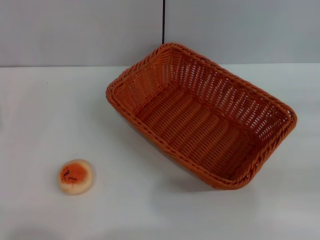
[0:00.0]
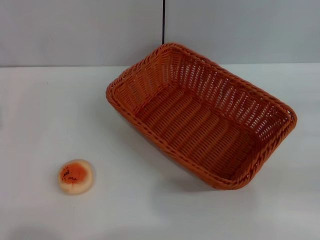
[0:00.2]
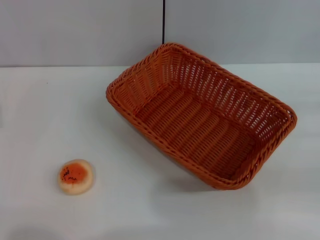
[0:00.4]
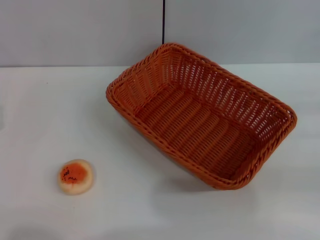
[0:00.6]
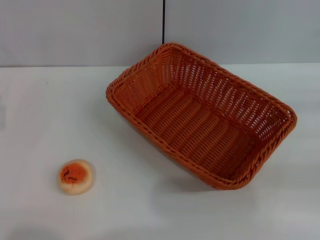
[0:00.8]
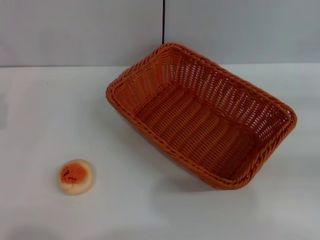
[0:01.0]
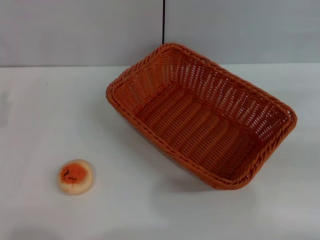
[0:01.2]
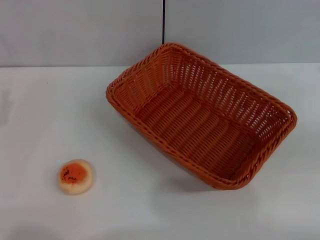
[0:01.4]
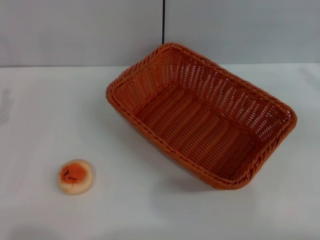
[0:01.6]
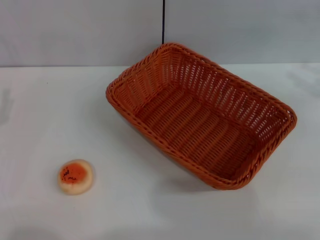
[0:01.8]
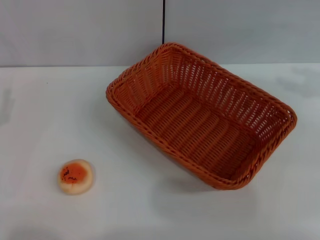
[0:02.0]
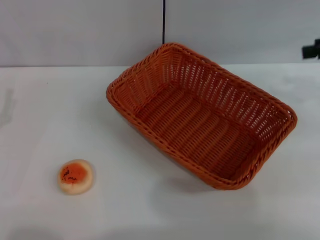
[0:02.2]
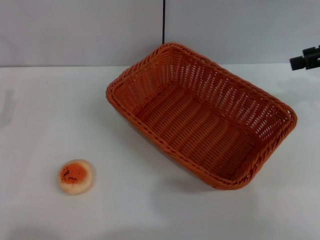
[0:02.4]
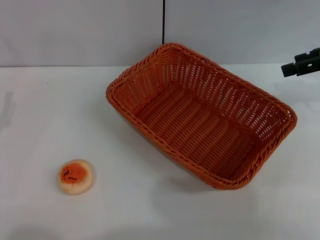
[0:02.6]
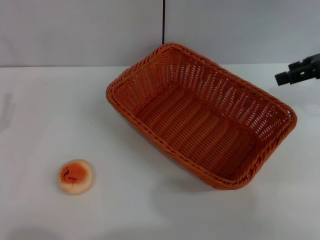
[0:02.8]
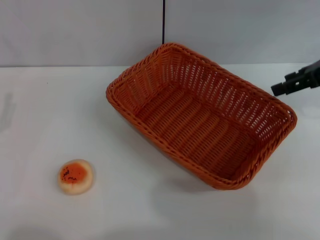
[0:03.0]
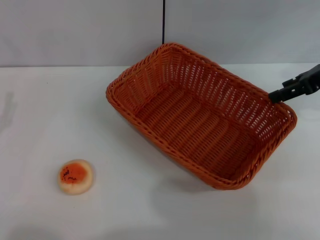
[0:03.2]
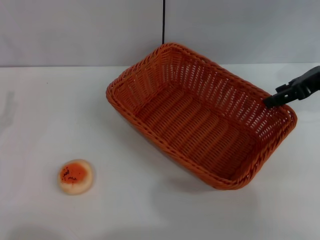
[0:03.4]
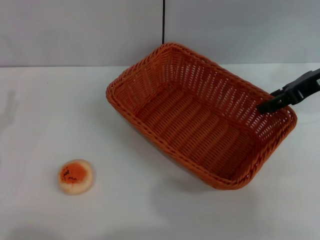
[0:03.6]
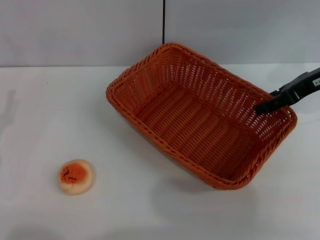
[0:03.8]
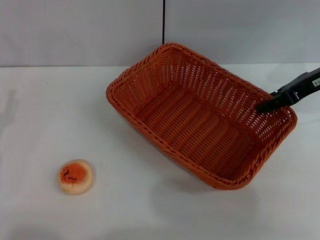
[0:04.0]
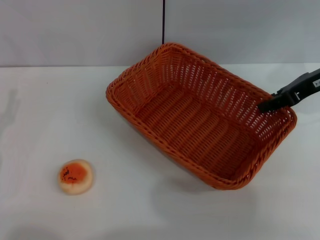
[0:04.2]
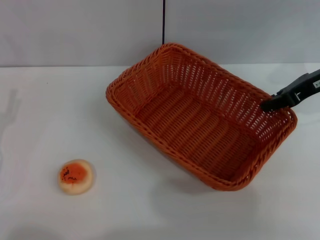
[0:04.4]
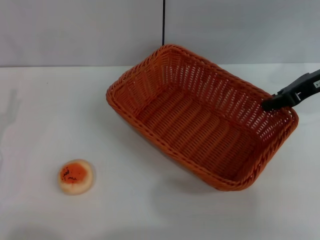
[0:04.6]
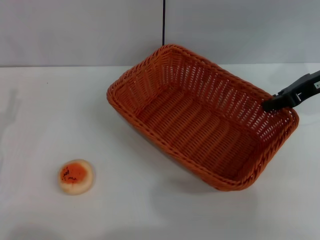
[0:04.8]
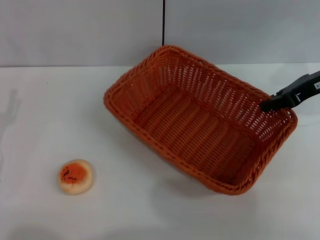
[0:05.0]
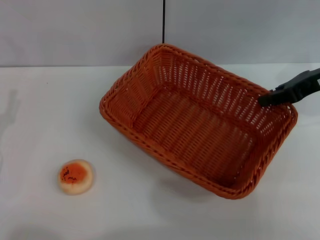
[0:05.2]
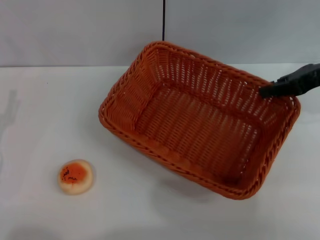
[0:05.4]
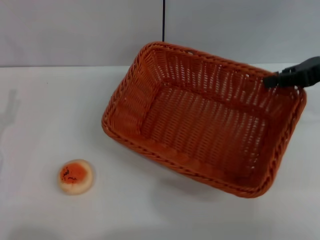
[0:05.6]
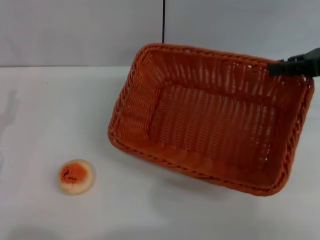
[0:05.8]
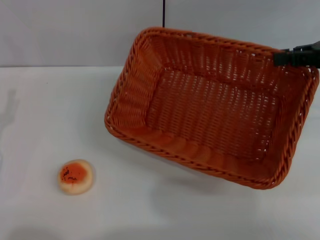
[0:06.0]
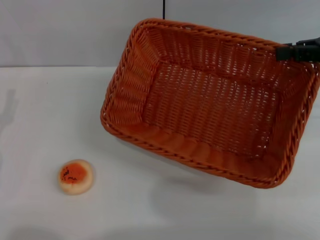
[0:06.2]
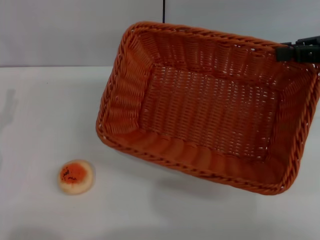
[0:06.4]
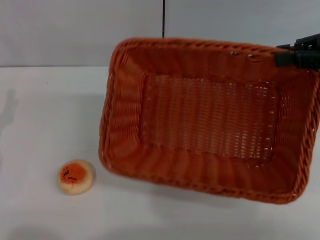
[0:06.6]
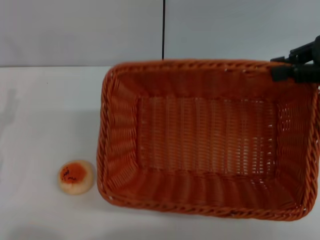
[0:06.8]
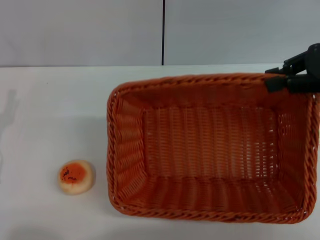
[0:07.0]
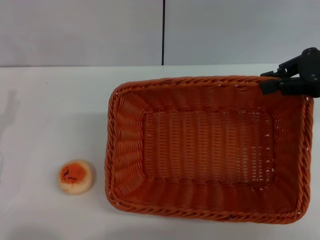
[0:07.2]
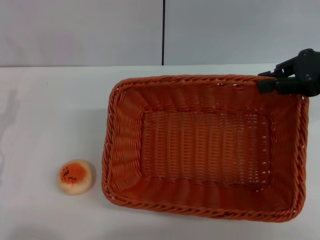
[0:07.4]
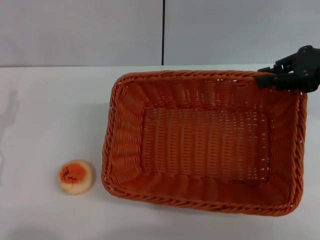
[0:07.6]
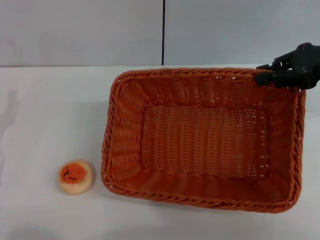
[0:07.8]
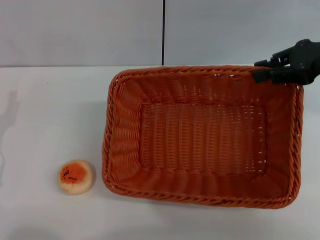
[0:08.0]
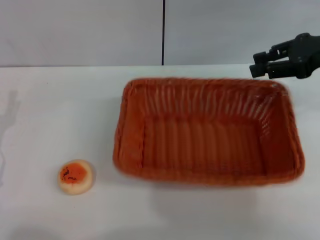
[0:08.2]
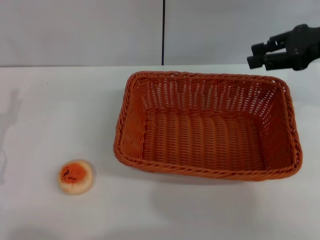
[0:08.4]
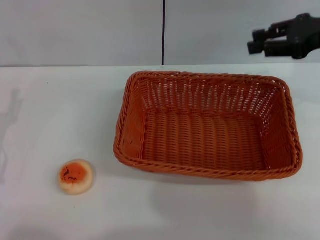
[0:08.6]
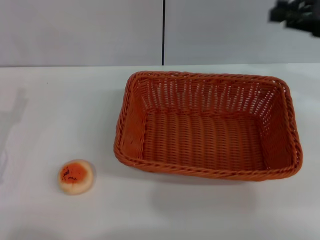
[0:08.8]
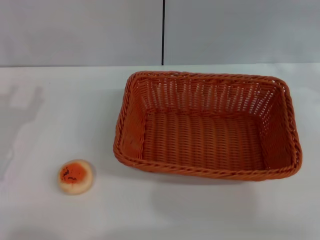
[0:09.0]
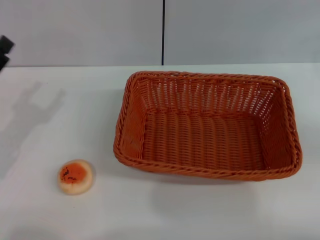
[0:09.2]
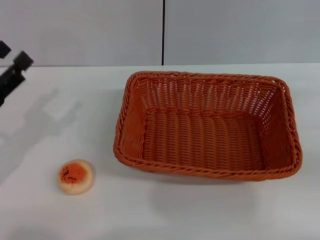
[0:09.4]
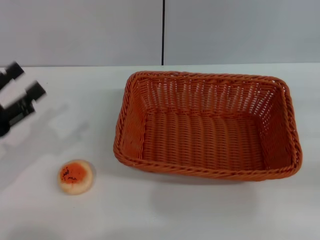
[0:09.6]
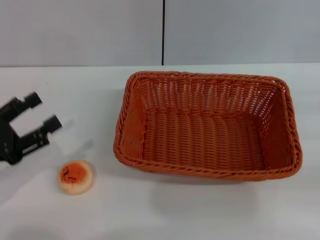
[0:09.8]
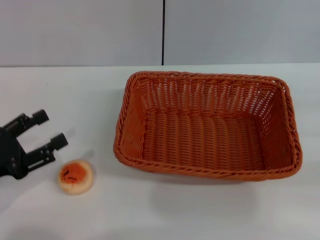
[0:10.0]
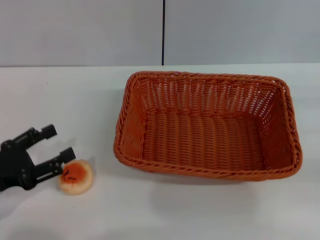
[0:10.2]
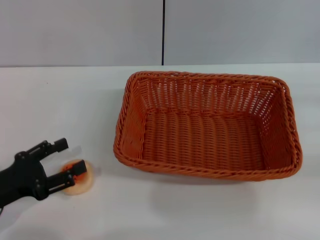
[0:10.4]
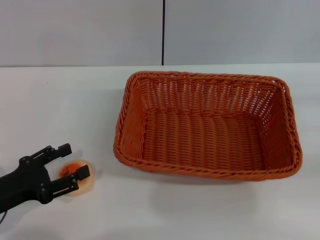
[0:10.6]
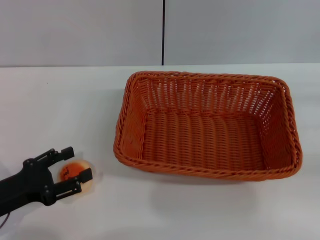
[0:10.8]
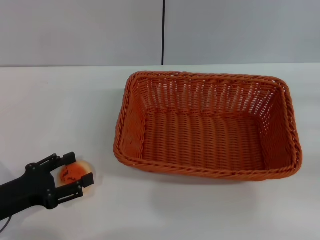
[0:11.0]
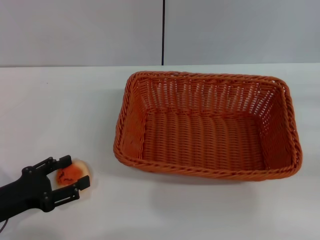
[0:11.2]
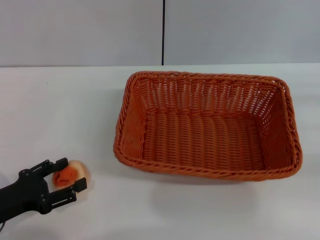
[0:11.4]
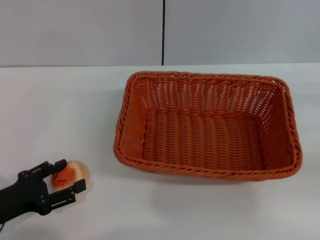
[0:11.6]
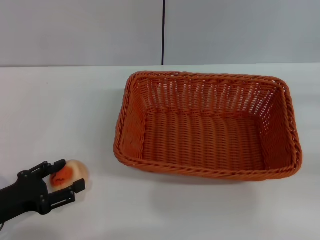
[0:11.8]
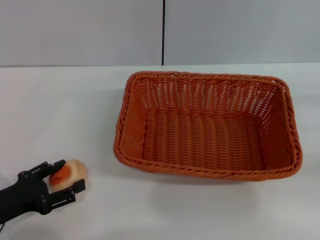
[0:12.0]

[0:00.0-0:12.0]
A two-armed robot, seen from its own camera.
Step, 0.0 to 8.4 s: Move the basket to the center of view with the right gripper.
1.6 to 3.0 s: The right gripper travels to the left and forward by approximately 15 cm.
3.0 to 4.4 s: The right gripper closes up.
4.4 to 6.0 s: The right gripper shifts approximately 5 cm to the right, and closes.
7.6 to 9.0 s: The right gripper moves to the right, approximately 5 cm, and opens up.
10.4 to 12.0 s: The grippers make only small movements.

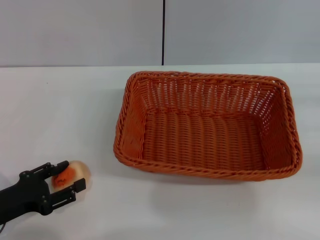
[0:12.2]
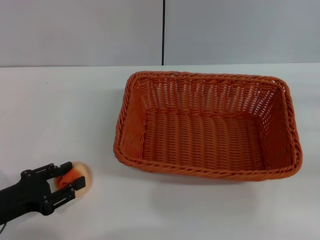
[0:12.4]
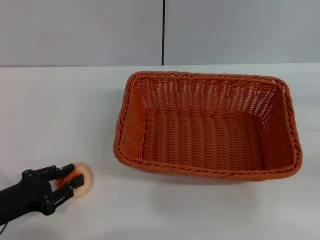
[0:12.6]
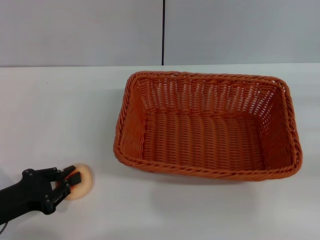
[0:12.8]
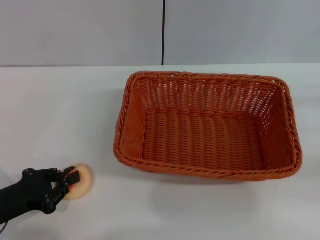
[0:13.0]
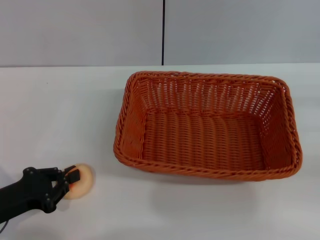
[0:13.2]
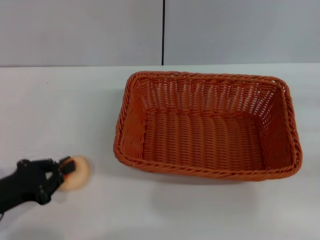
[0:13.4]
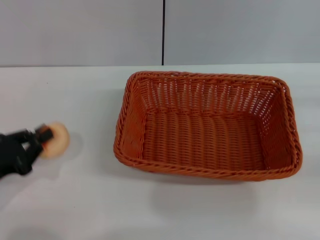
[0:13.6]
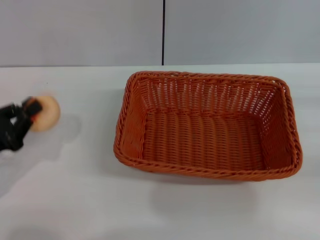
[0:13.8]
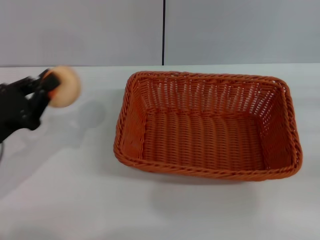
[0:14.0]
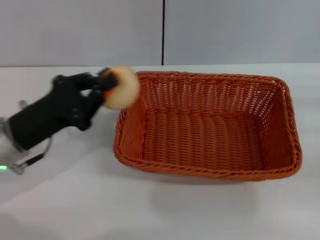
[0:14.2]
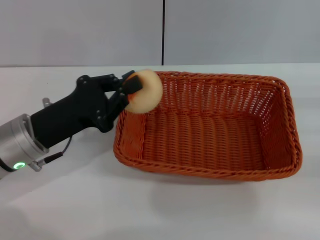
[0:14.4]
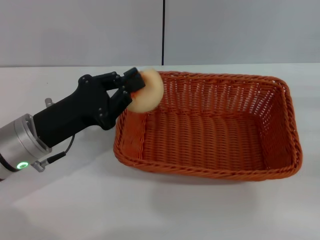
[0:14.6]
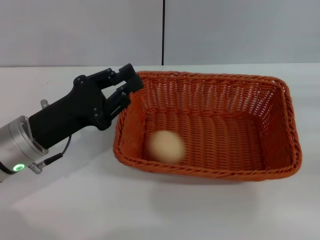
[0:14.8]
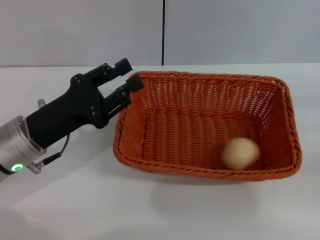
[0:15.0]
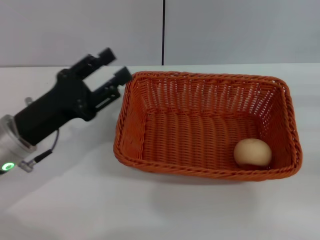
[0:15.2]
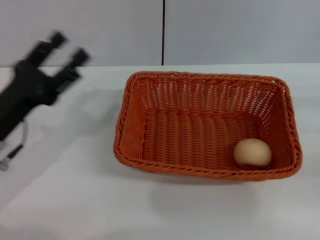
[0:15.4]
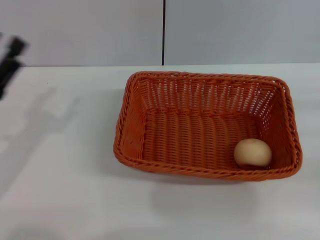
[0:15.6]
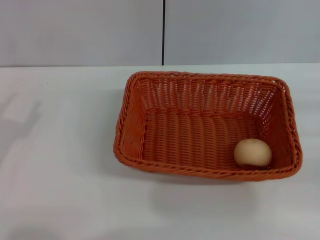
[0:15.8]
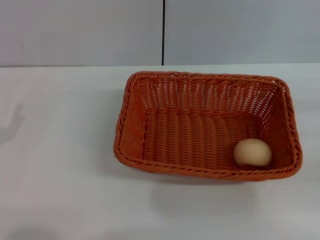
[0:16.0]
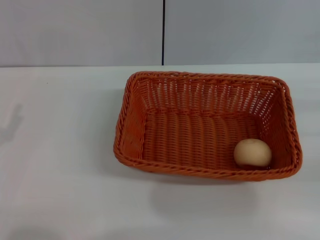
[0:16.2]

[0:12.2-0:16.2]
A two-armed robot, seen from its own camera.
Step, 14.0 to 14.8 s: Place the egg yolk pastry into the basket with the left gripper.
12.2 to 13.6 s: The left gripper closes its fingers.
13.6 to 14.8 s: The left gripper is displaced to the right and forward by roughly 10 cm.
14.8 to 16.2 s: The left gripper goes approximately 15 cm to the left and backward, and opens.

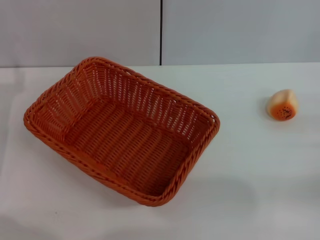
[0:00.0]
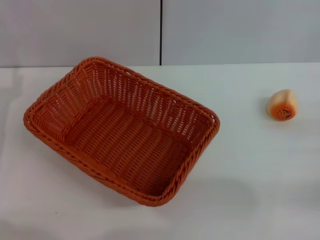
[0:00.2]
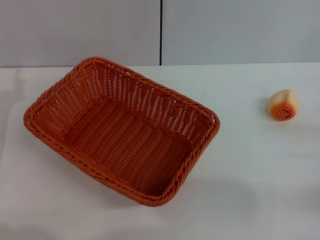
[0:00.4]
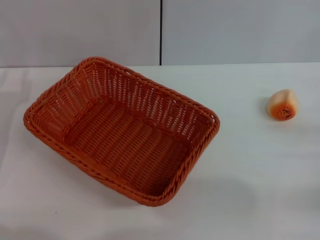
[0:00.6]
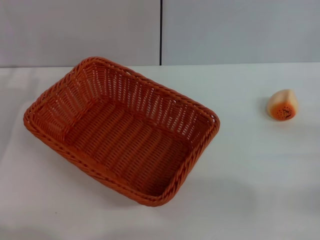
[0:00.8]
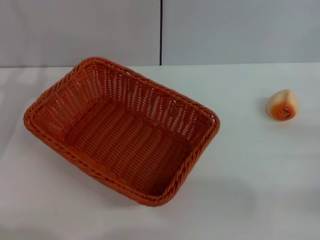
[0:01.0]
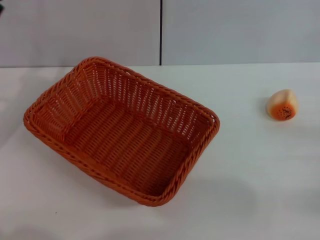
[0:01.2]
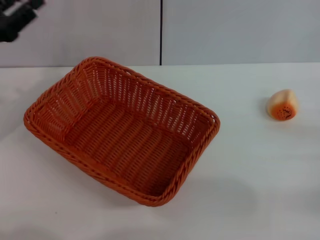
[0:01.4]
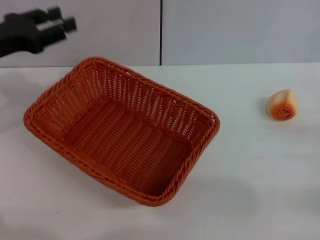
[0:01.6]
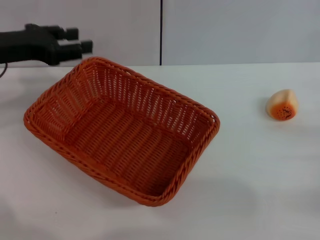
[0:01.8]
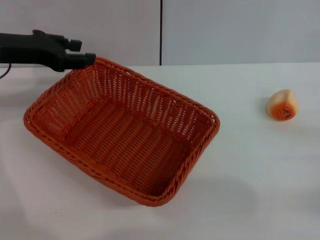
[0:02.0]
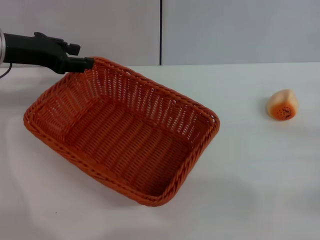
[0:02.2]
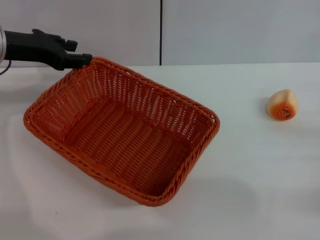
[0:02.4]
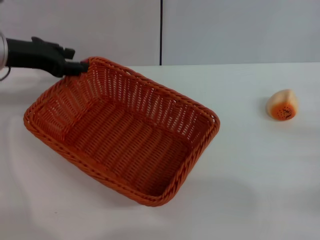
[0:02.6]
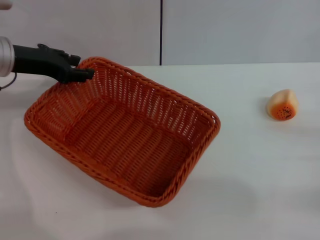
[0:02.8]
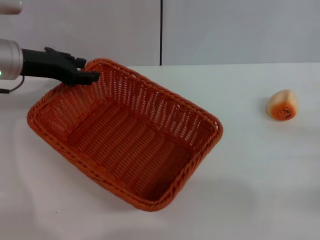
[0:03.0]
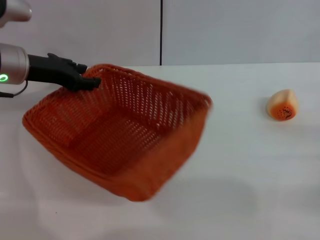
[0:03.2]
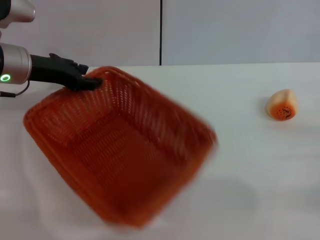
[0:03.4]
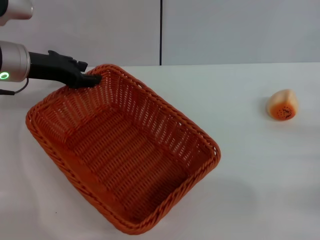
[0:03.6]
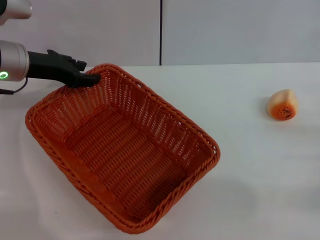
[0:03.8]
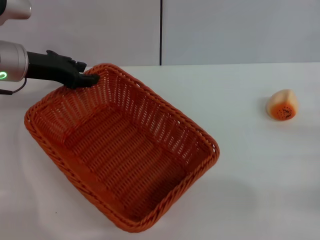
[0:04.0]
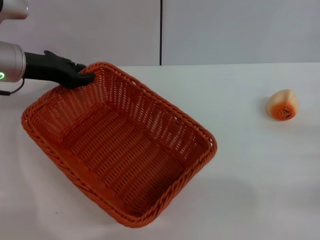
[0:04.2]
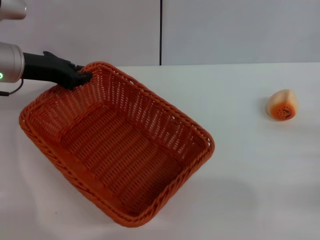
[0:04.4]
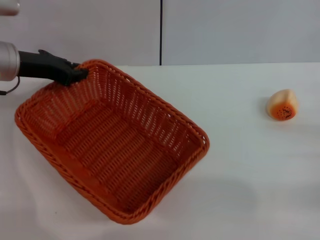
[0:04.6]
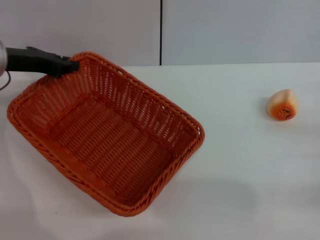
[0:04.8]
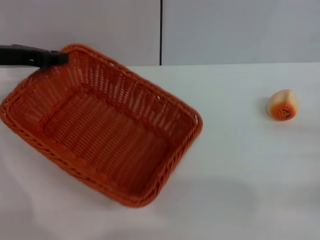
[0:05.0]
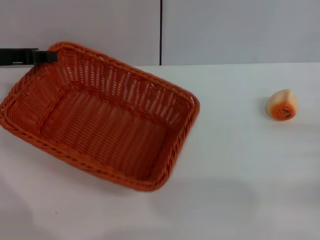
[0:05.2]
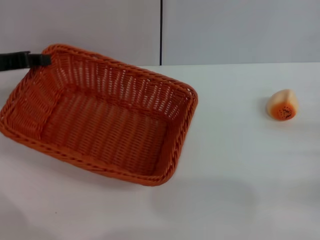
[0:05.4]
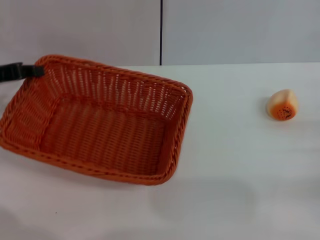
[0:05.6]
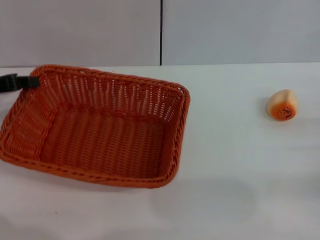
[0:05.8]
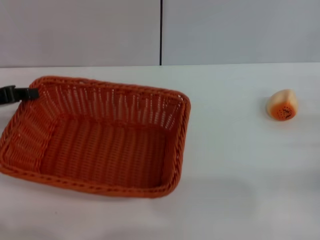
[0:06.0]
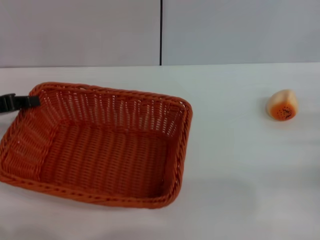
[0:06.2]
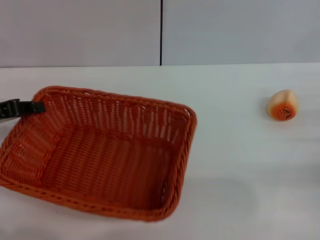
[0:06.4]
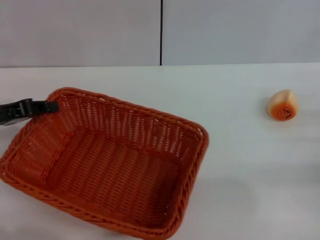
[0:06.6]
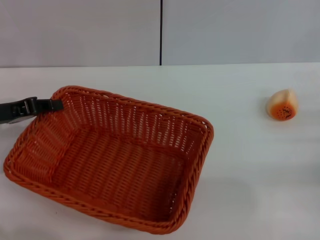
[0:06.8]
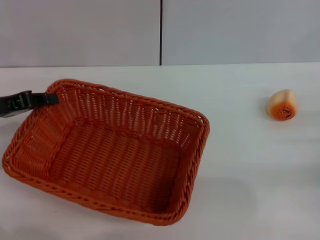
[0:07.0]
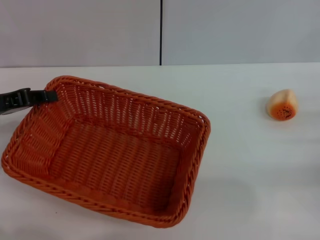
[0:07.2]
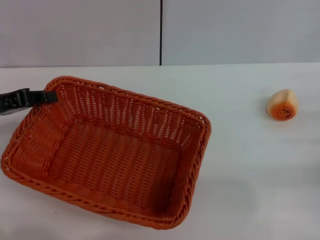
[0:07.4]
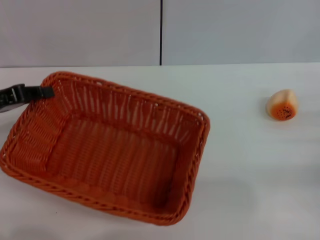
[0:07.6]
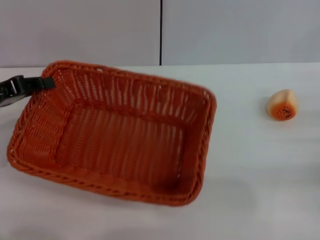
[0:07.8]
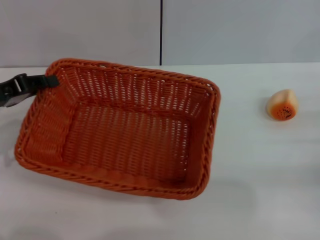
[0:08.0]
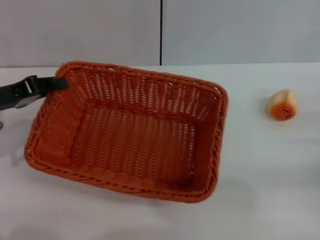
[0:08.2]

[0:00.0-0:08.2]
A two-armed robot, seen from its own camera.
Step, 0.0 to 4.4 s: Grasp the basket with left gripper.
0.0 to 1.6 s: The left gripper shifts approximately 10 cm upward and forward.
1.6 to 3.2 s: The left gripper heads to the right, covering about 5 cm.
3.2 to 5.0 s: The left gripper closes its fingers.
5.0 to 6.6 s: The left gripper travels backward and downward by about 10 cm.
